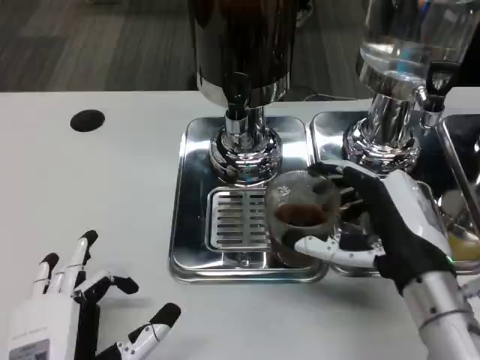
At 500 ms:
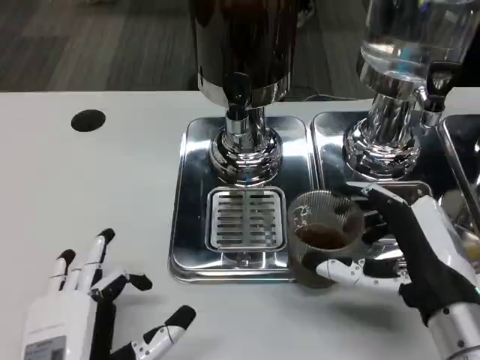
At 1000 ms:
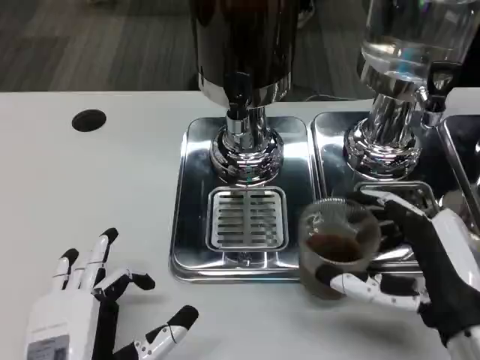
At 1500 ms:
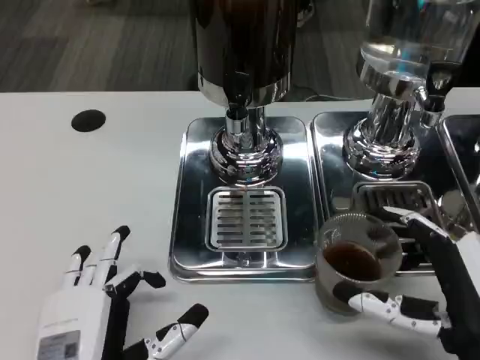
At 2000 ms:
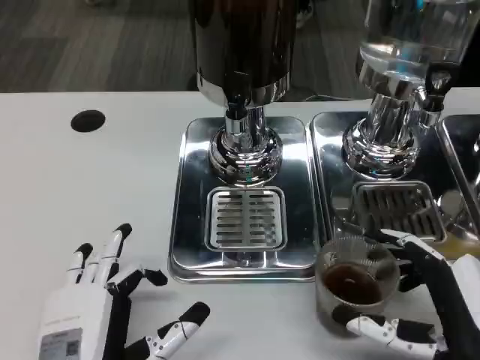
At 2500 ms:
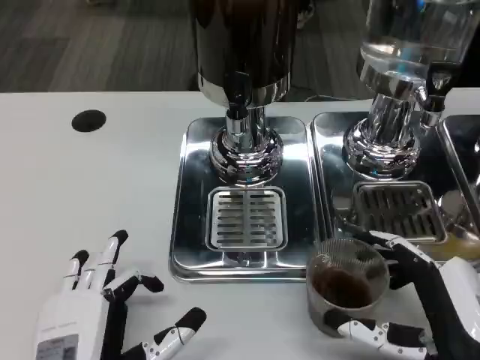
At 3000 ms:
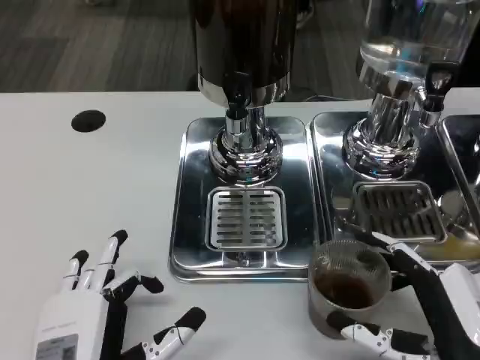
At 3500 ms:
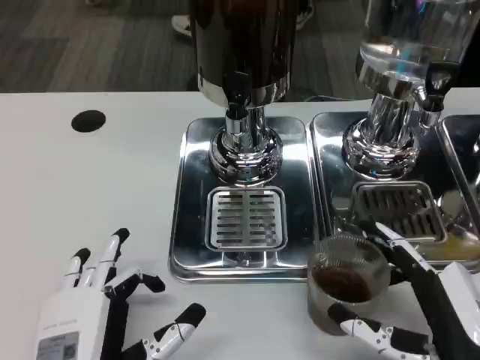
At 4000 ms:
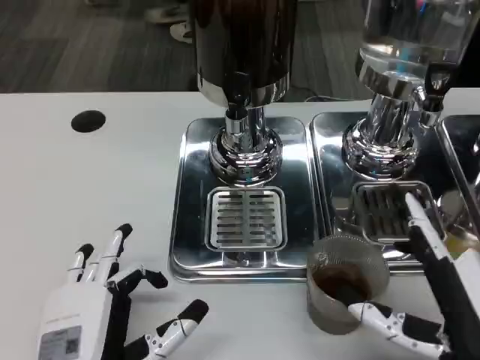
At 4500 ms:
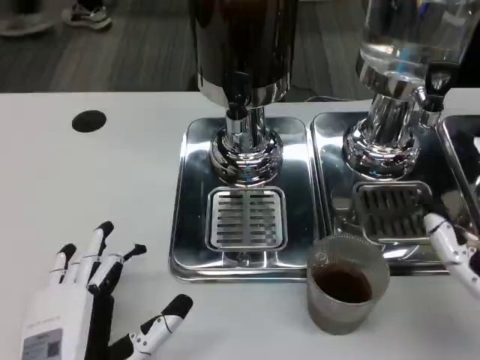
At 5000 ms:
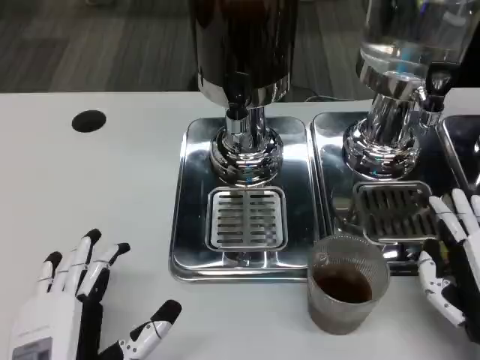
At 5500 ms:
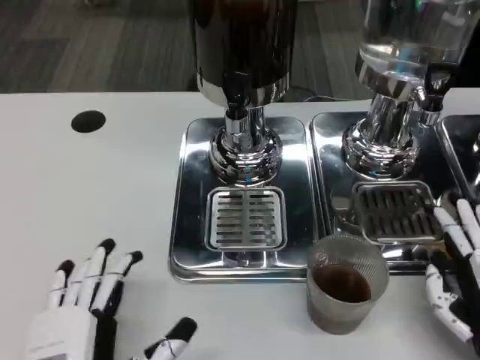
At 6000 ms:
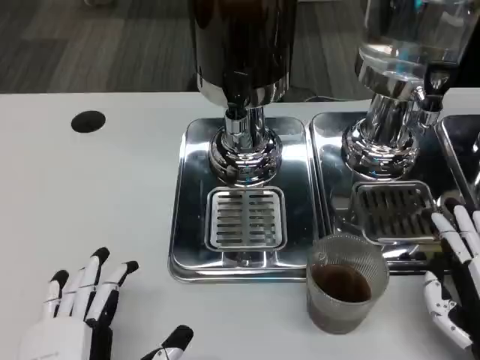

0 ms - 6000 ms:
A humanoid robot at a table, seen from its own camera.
Task of the whole recording: Grasp the cup under the faucet to collect the drink, then remove the cup.
0 ms - 2000 ms: The right hand travels backward by about 10 cm.
2000 ms - 4000 ms: The hands stay close to where they were, moving slightly.
4000 ms - 6000 ms: The right hand shifts by approximately 5 cm.

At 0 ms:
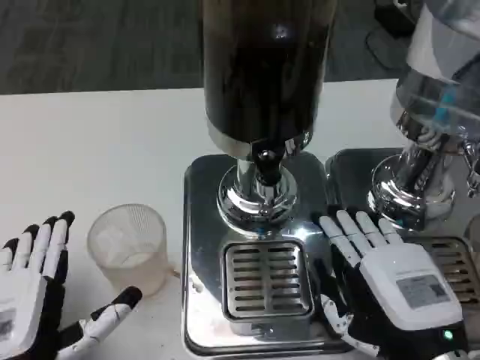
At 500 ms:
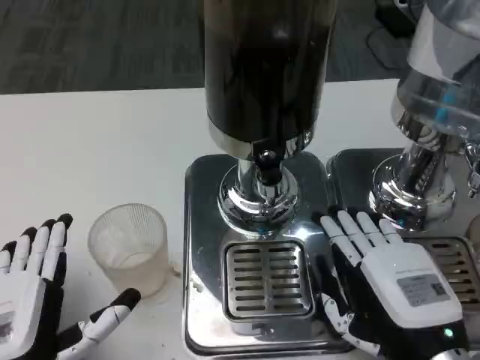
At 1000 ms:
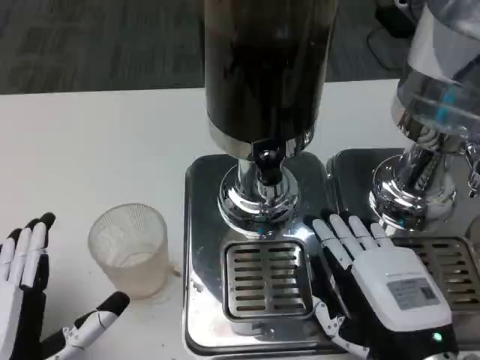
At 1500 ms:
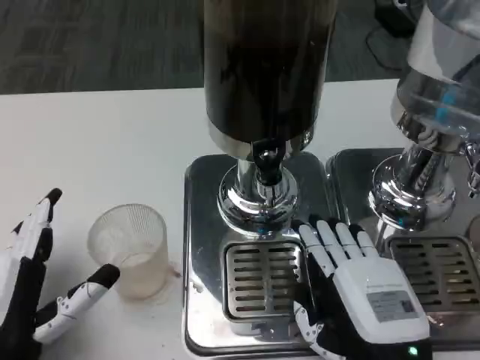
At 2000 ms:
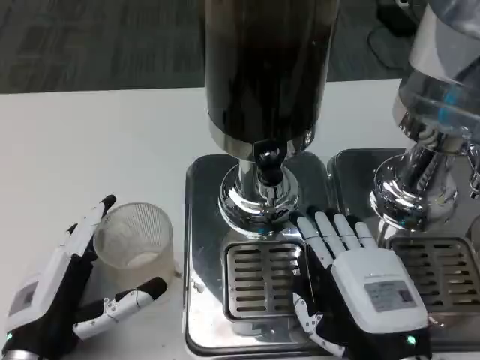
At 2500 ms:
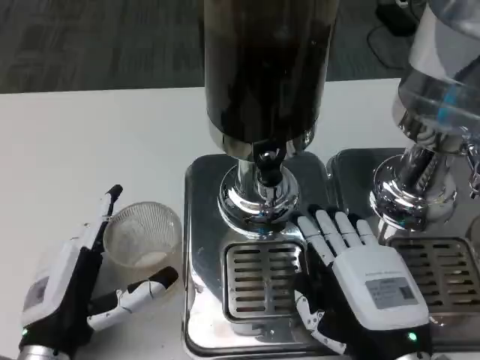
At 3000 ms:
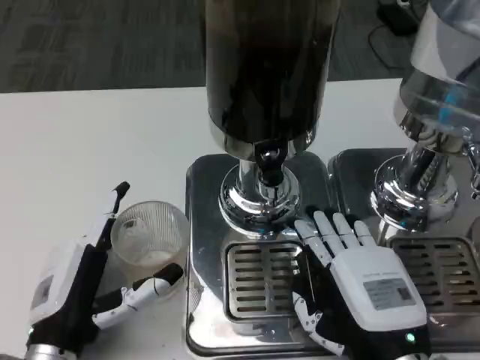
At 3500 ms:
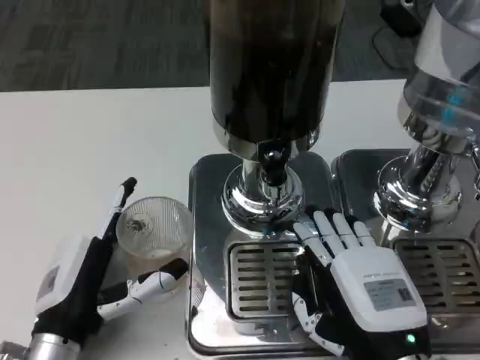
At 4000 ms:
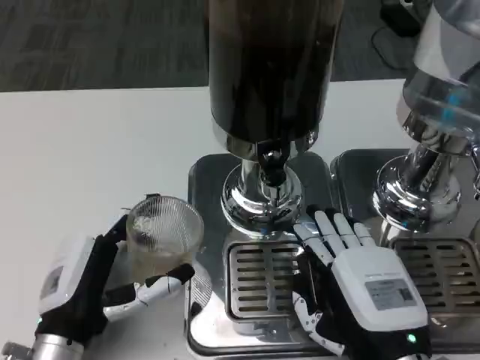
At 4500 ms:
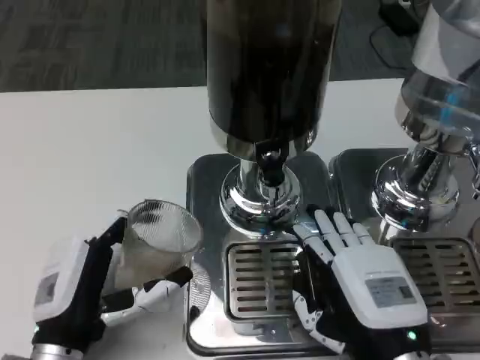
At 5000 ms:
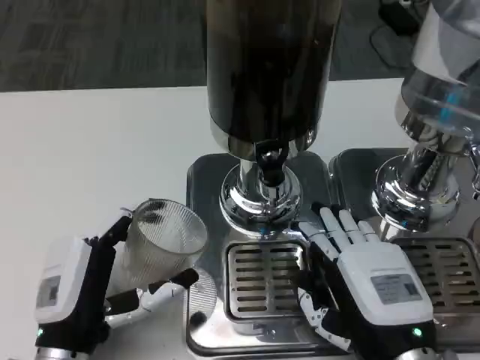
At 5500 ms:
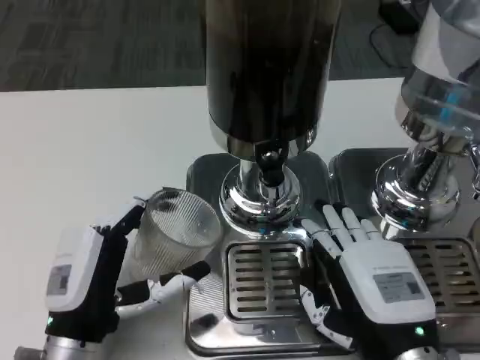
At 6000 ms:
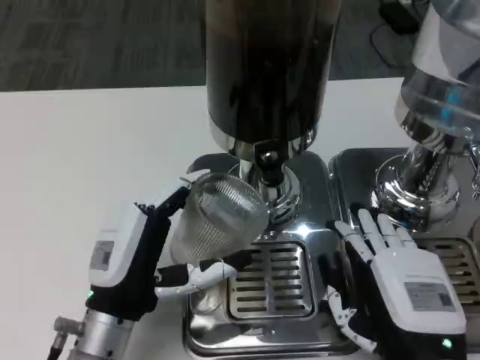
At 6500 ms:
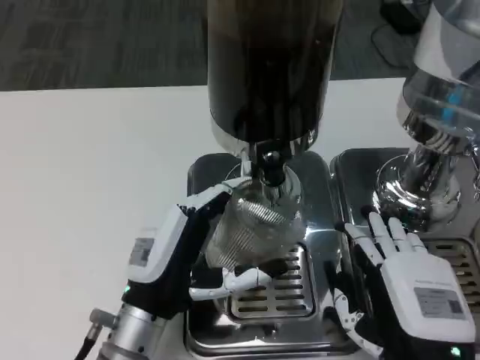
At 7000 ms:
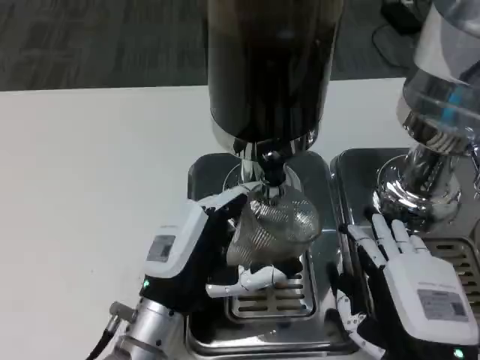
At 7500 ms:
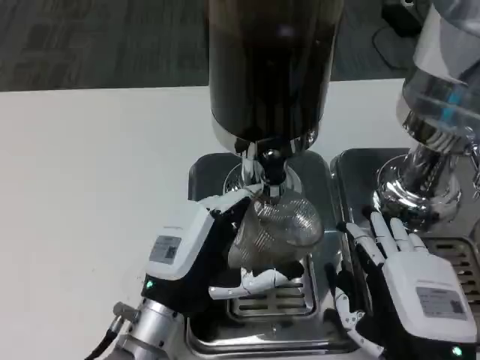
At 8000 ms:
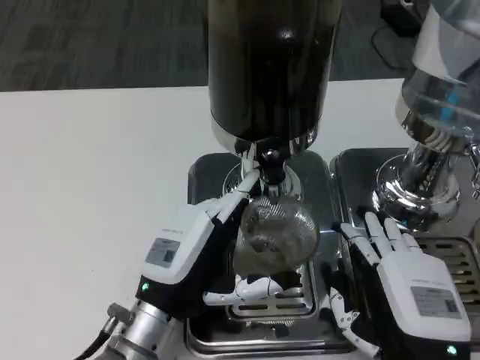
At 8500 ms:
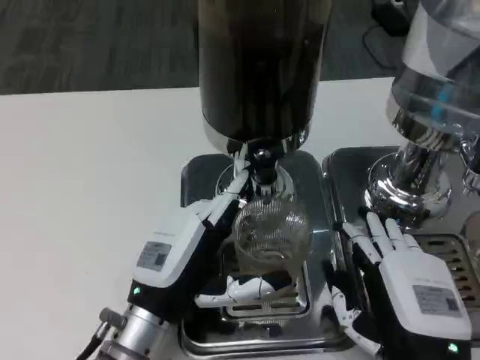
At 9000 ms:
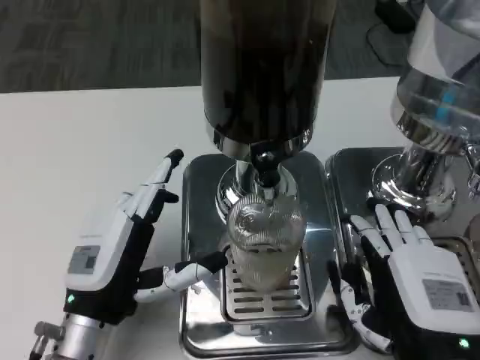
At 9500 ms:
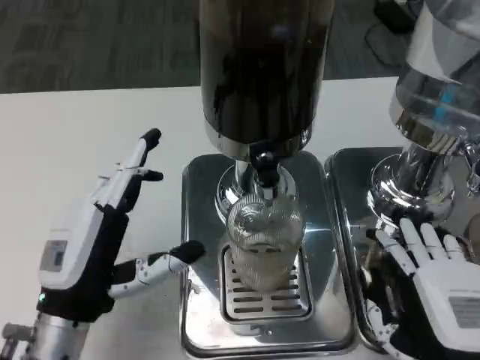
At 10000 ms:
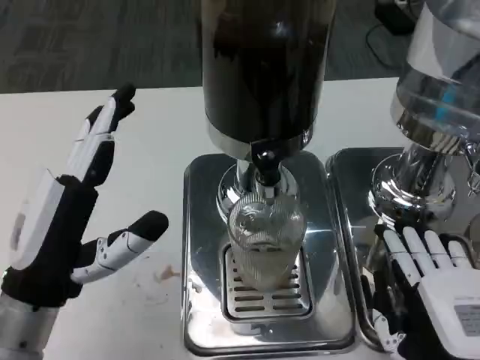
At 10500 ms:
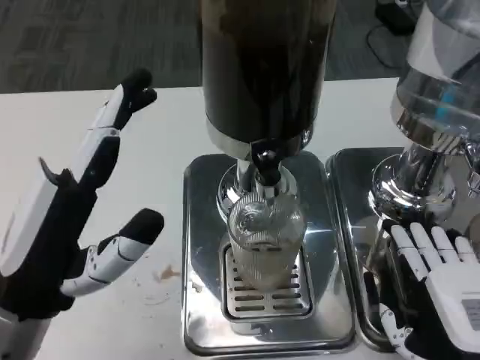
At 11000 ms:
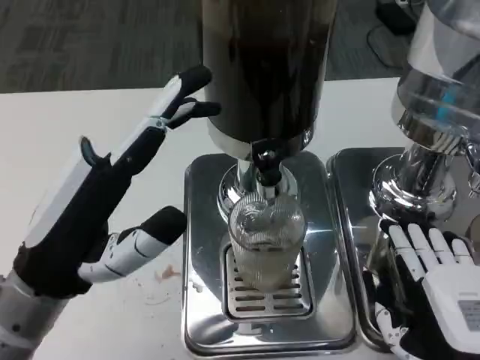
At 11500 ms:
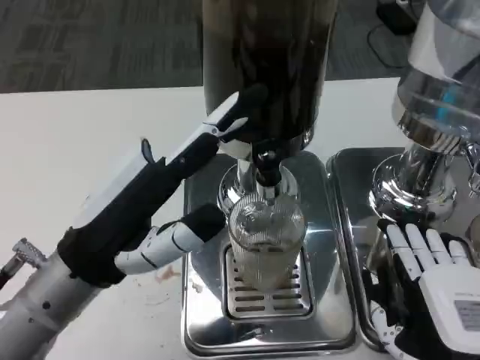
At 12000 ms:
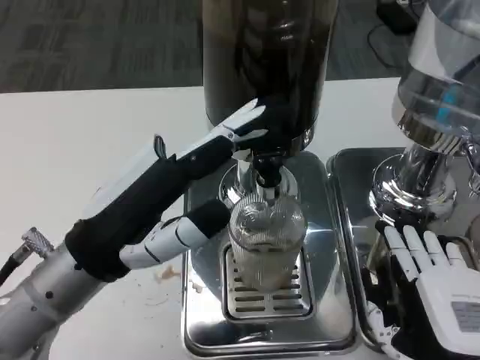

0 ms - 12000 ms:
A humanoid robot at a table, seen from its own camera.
Task of the whole recording: Grasp the cup under the faucet to collect the drink, then remove the cup.
0 ms - 2000 ms: The left hand changes place by approximately 5 cm.
4000 ms - 6000 ms: The left hand moves some 5 cm.
8000 ms - 10000 ms: The left hand is displaced to the left and upward by approximately 10 cm.
10000 ms - 12000 ms: The left hand ends up about 5 cm from where it was.

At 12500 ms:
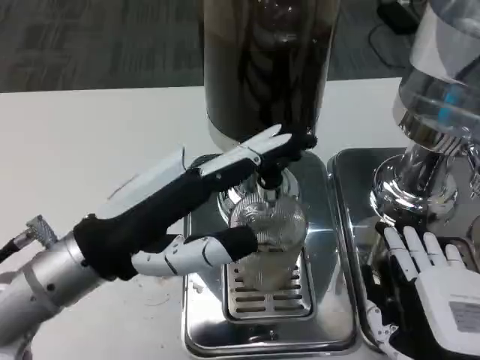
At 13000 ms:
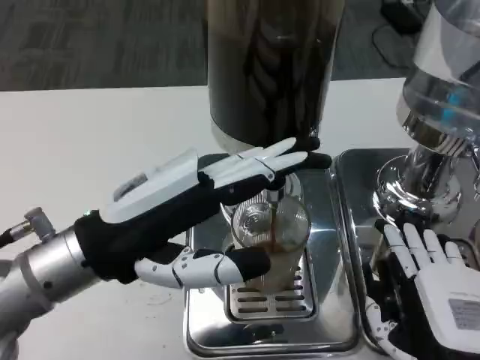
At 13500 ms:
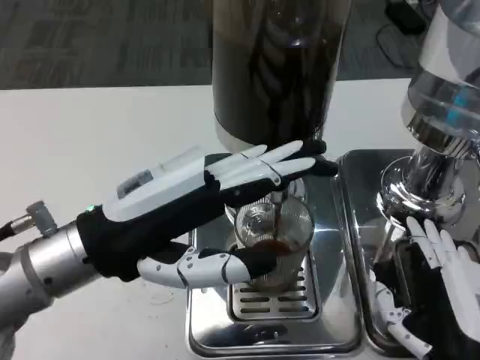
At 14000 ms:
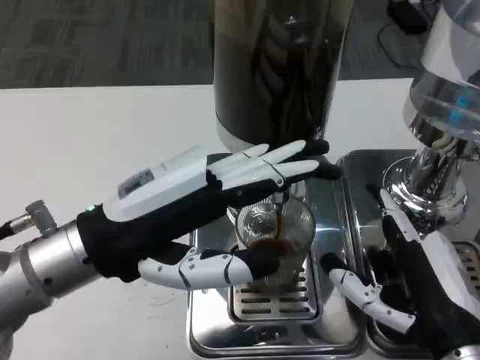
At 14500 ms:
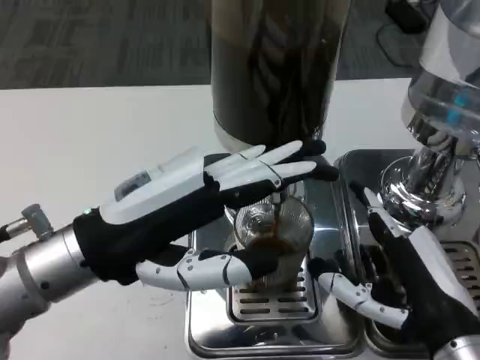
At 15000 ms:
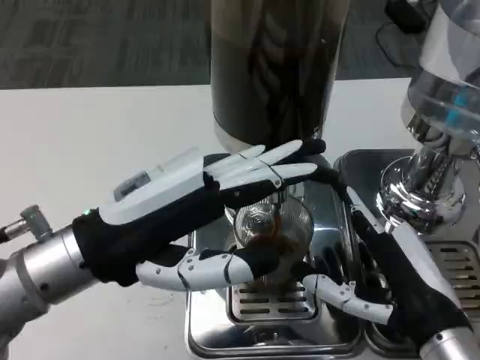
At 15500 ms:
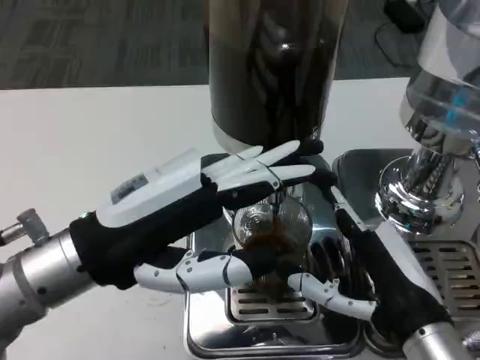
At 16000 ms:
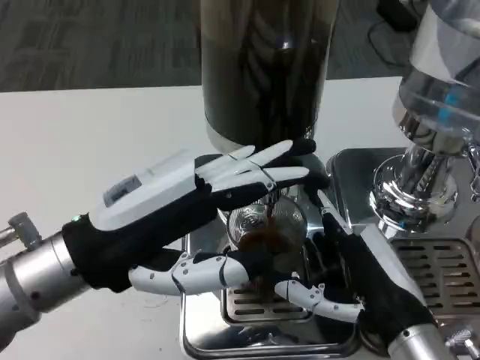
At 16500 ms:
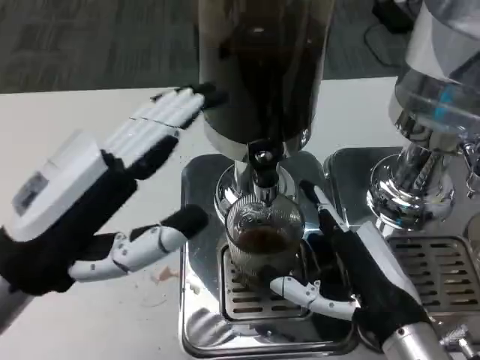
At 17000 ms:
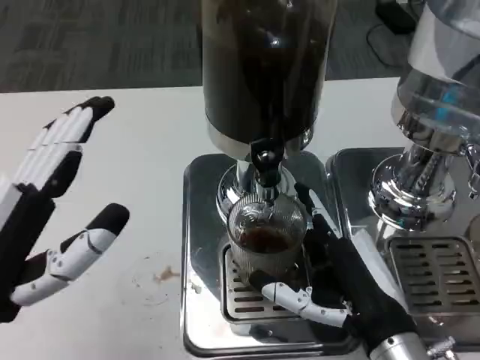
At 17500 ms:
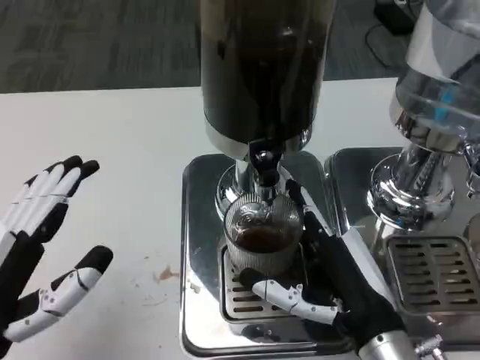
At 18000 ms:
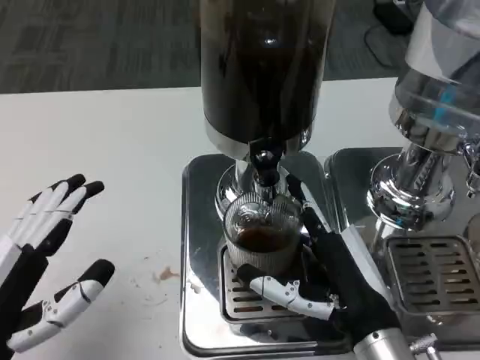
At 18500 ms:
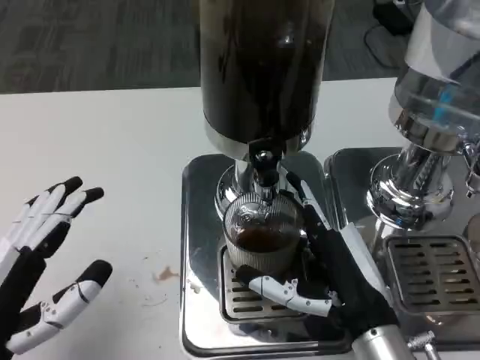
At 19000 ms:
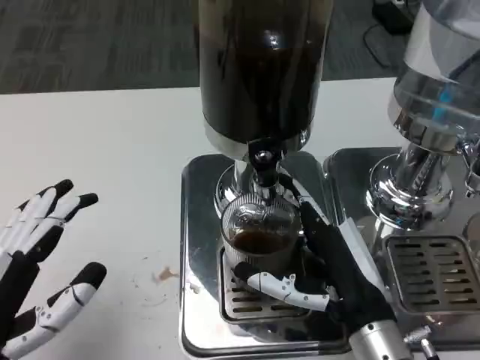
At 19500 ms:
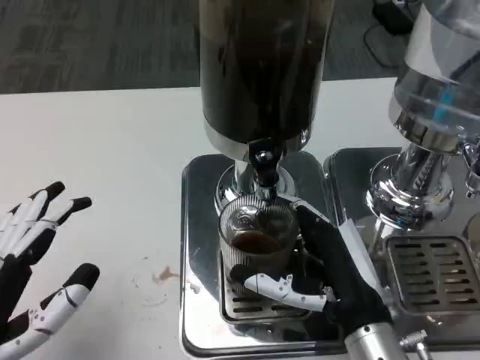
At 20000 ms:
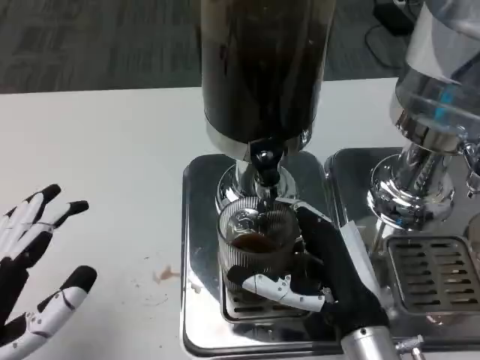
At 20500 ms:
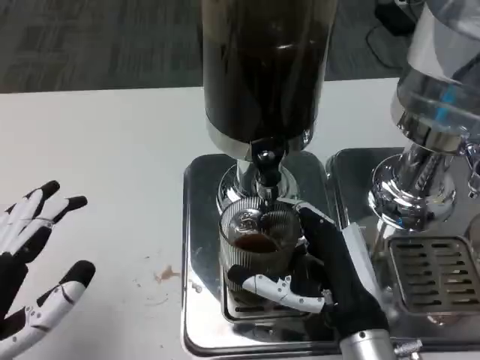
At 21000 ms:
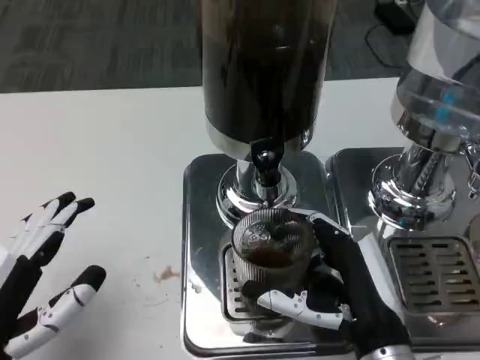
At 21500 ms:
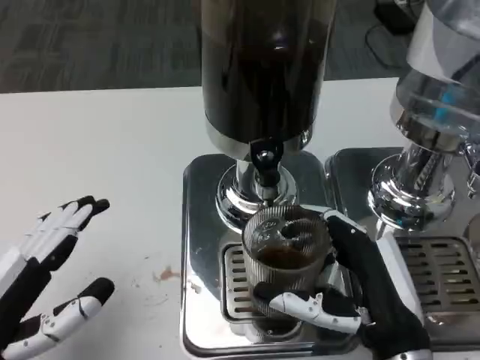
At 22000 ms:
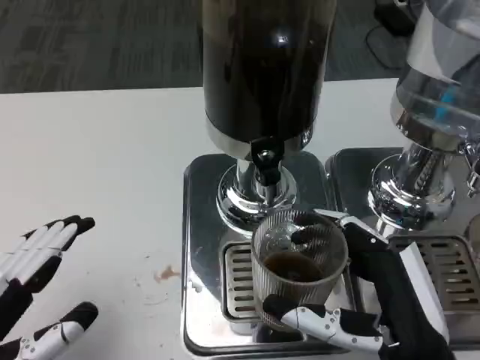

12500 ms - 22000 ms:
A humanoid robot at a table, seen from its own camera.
Task of the whole recording: Grasp the cup under the faucet to collect the drink, then remove the cup.
14500 ms - 16500 ms: The left hand changes place by about 5 cm.
16500 ms - 18000 ms: The left hand goes some 10 cm downward and backward.
18000 ms - 20000 ms: There are only small adjustments of the hands.
20000 ms - 22000 ms: The right hand goes approximately 5 cm backward.
